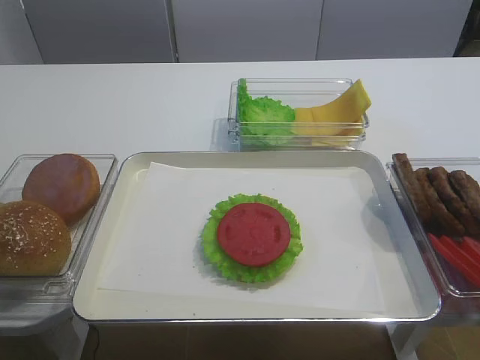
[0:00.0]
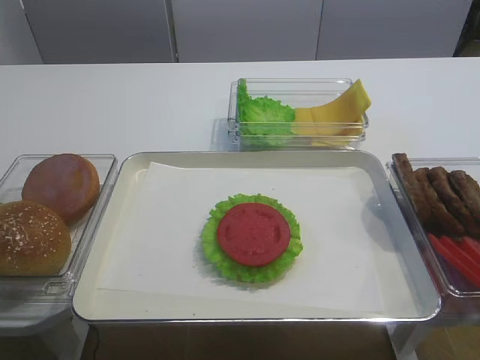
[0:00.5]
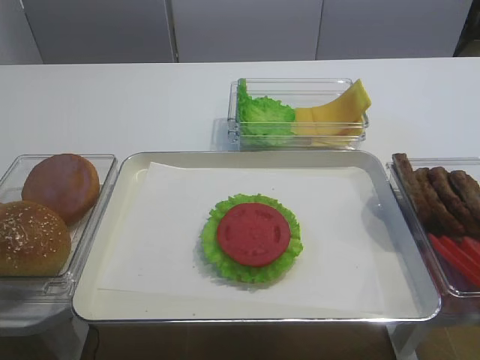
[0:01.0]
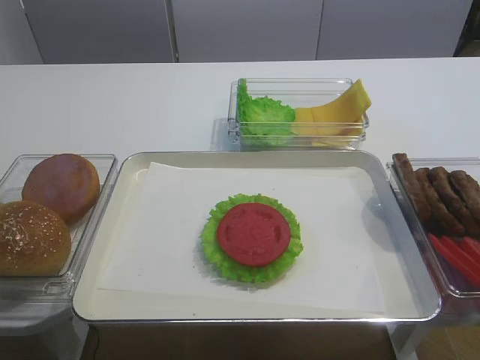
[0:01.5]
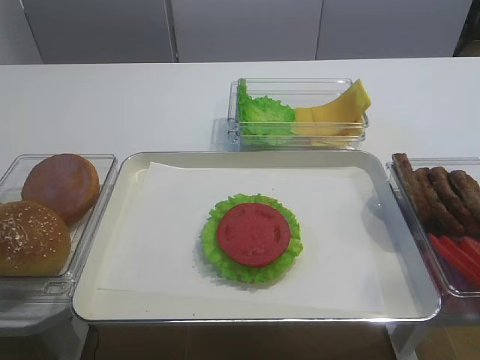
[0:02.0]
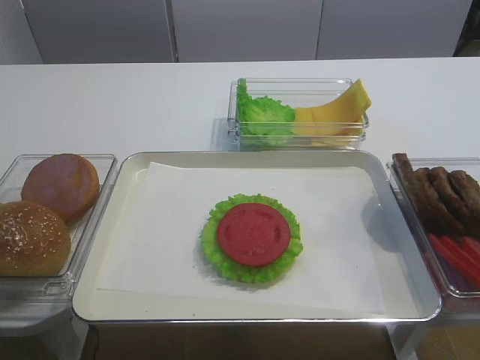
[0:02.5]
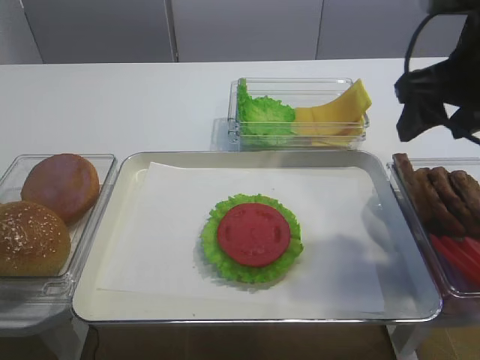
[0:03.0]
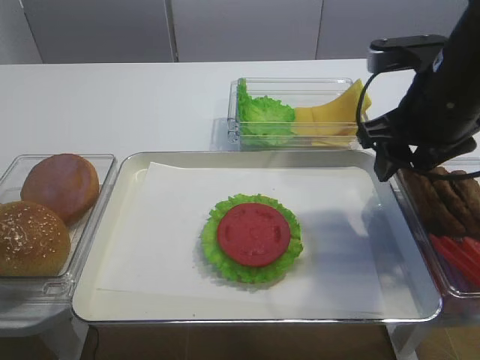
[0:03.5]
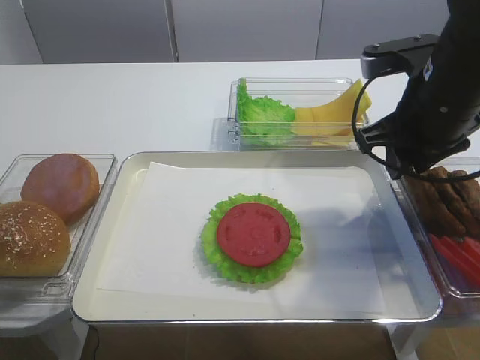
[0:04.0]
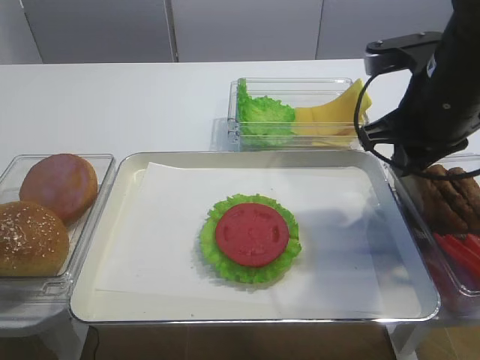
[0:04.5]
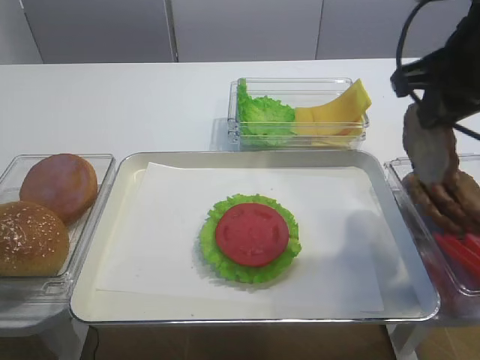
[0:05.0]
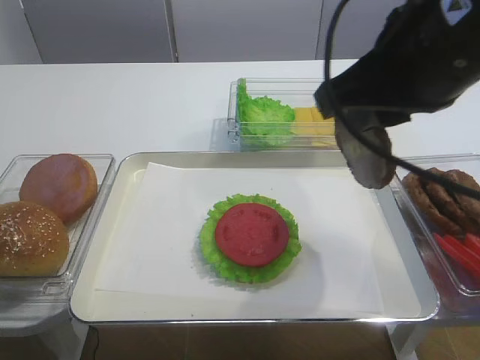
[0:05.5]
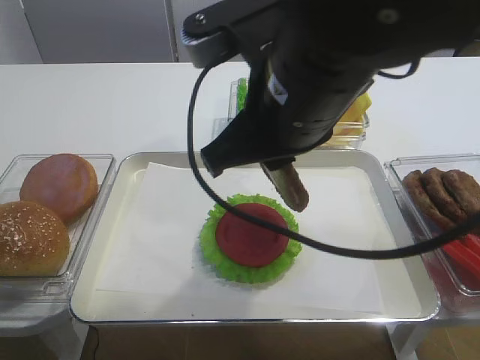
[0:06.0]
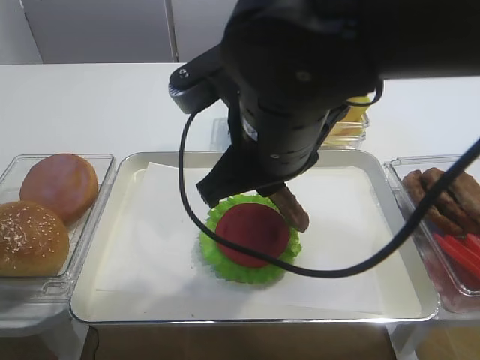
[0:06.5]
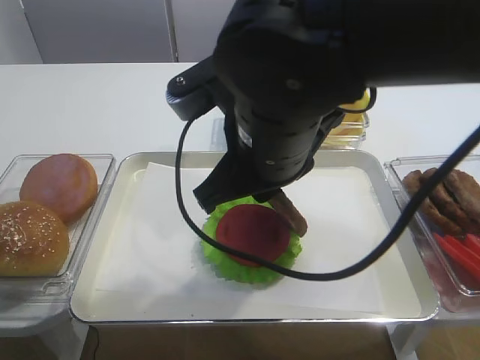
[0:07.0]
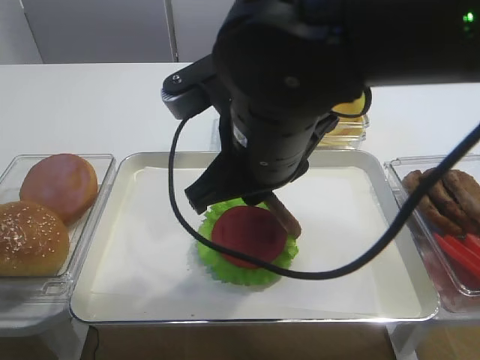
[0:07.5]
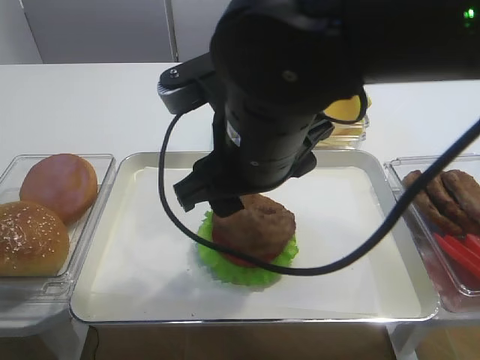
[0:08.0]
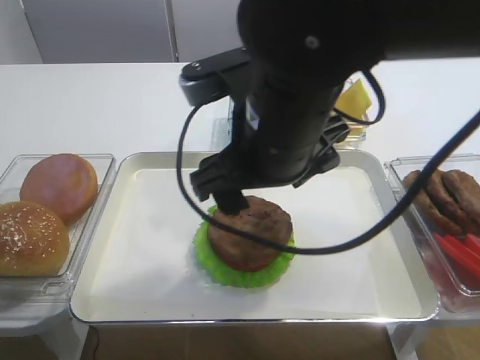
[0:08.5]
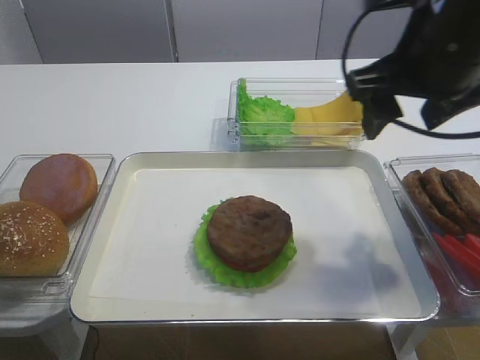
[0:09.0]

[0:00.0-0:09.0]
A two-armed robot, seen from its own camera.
Step, 0:00.0 to 0:04.5: Pick up the cutlet with the right gripper.
Step, 0:05.0 to 0:08.0: Place the cutlet on the tomato slice with the right gripper.
0:02.0 to 0:04.5: The right gripper goes some 30 cm forward, and closes up.
0:04.5 to 0:07.0: The right gripper travels to the left and backward by some 15 cm.
0:07.0 to 0:09.0: The right gripper shifts roughly 15 cm to the right, and opens up.

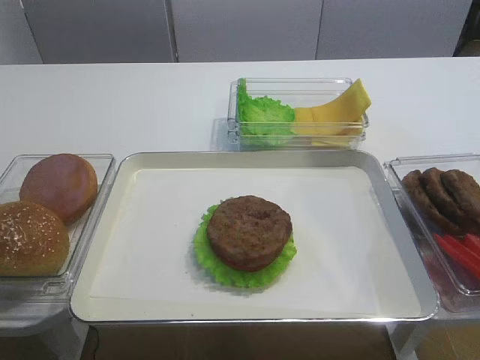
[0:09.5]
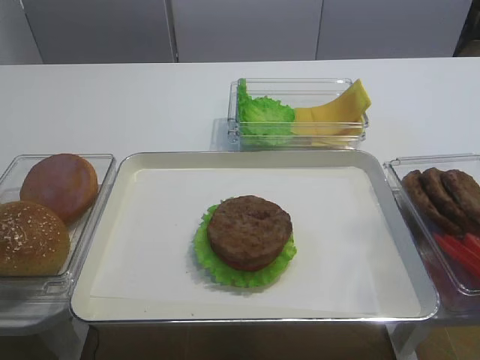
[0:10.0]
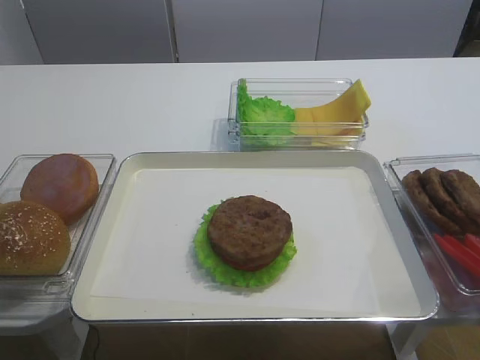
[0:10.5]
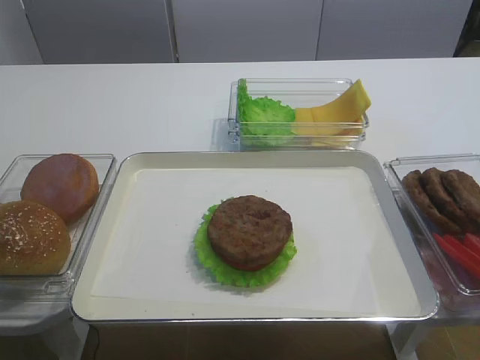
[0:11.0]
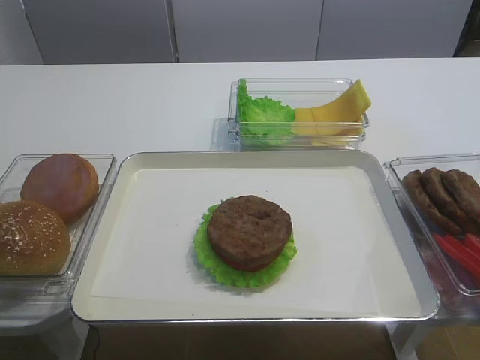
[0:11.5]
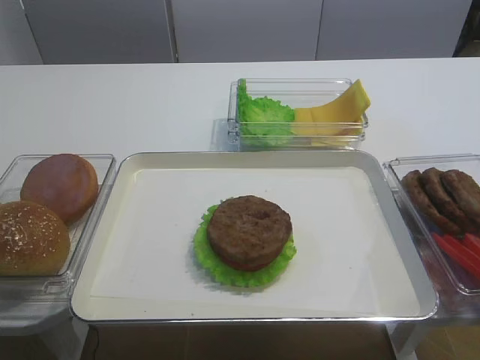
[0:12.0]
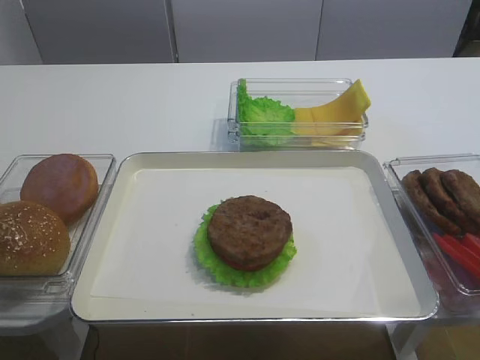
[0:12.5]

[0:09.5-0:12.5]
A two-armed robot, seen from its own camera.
0:09.5 to 0:11.0: The right gripper goes about 20 cm backward.

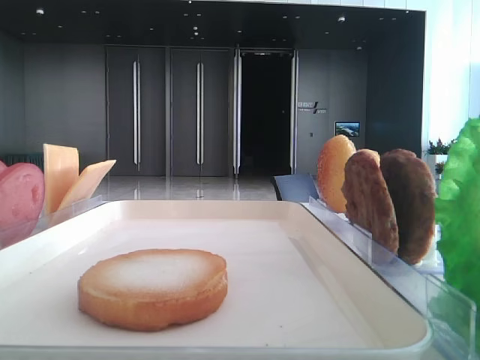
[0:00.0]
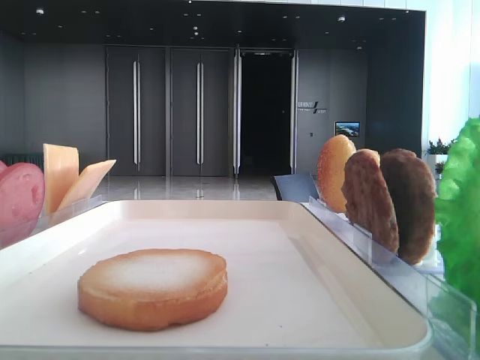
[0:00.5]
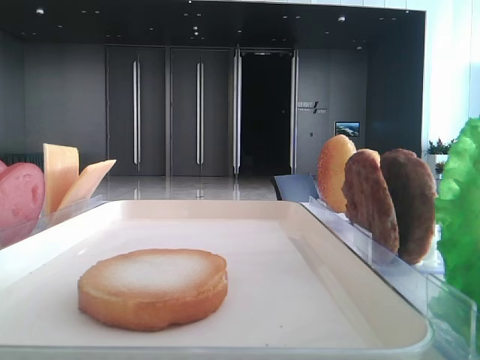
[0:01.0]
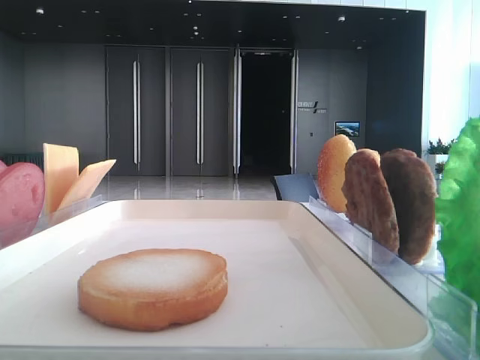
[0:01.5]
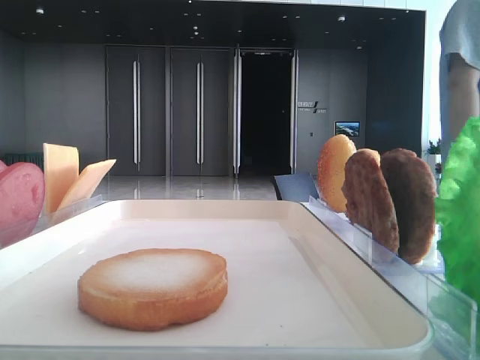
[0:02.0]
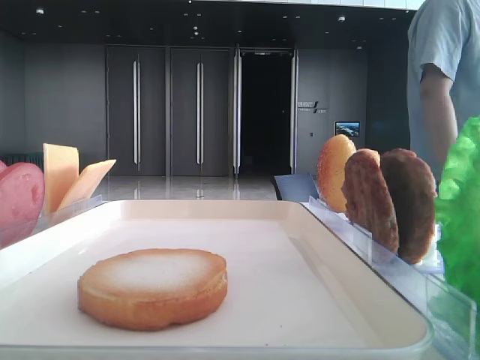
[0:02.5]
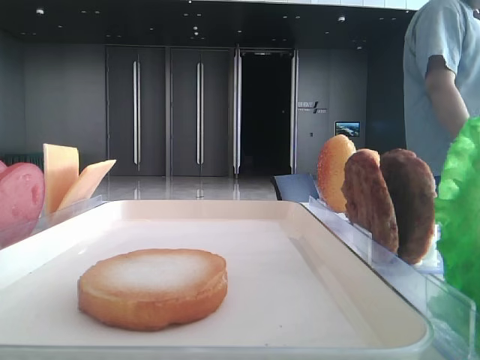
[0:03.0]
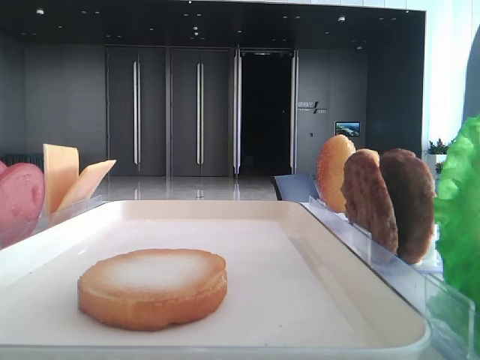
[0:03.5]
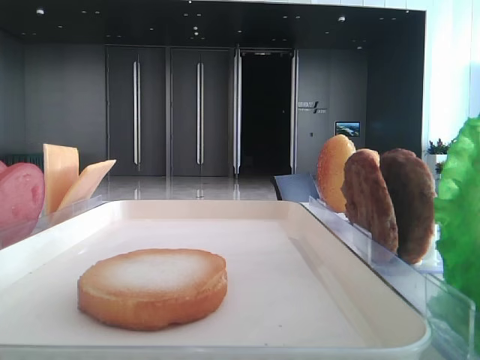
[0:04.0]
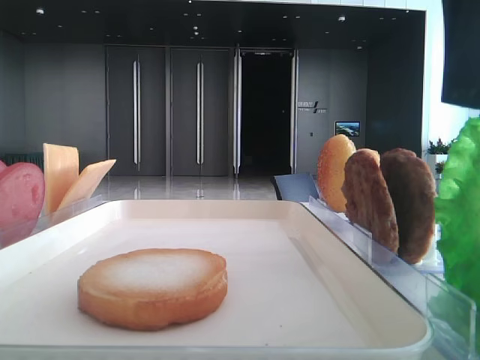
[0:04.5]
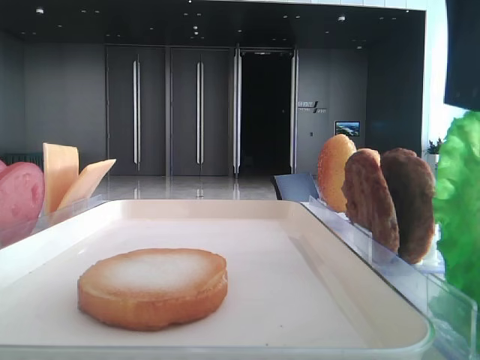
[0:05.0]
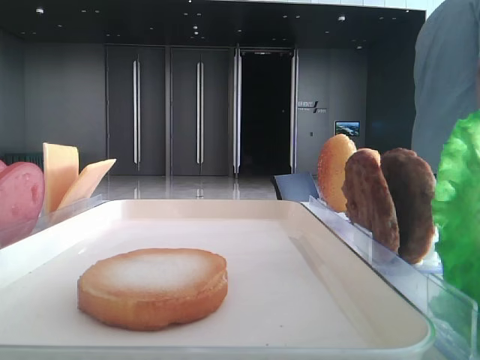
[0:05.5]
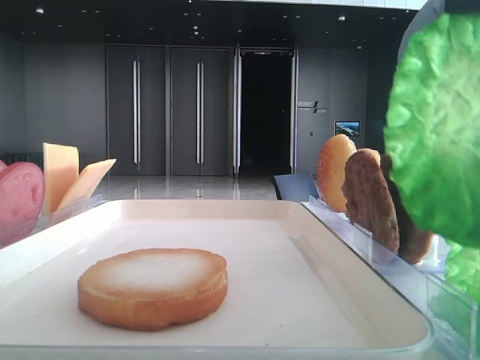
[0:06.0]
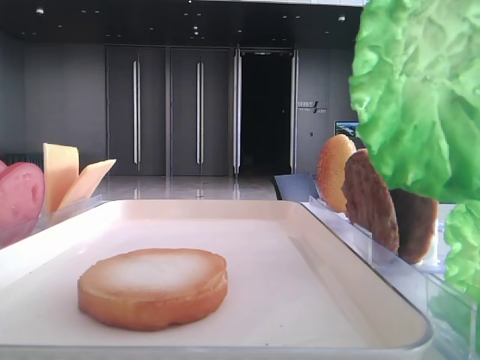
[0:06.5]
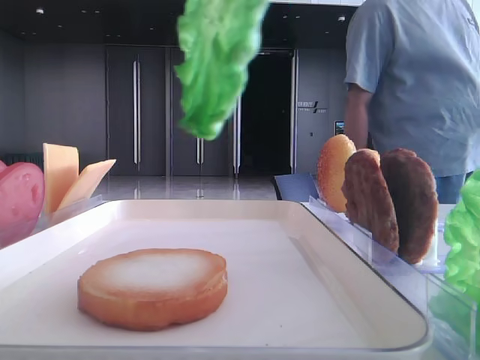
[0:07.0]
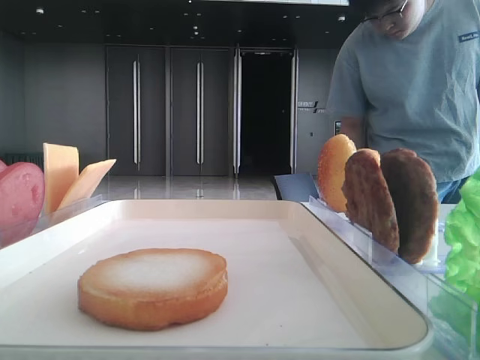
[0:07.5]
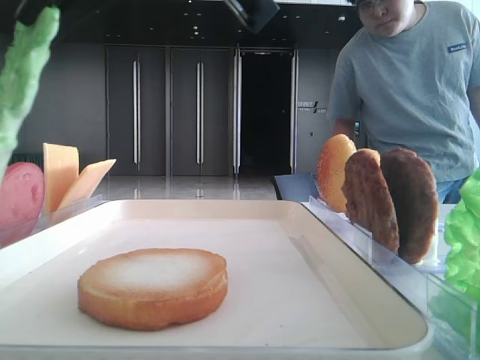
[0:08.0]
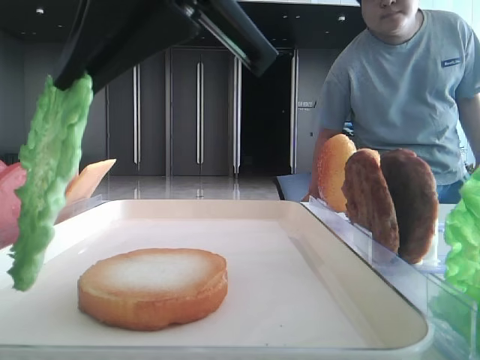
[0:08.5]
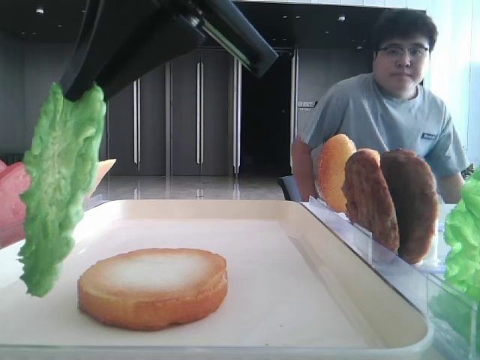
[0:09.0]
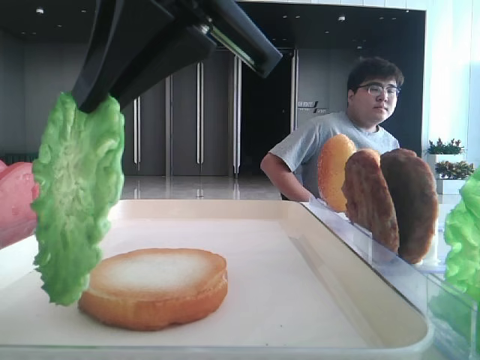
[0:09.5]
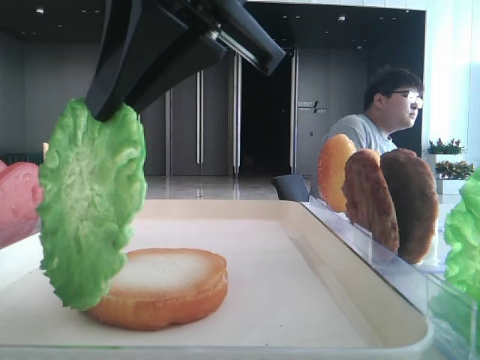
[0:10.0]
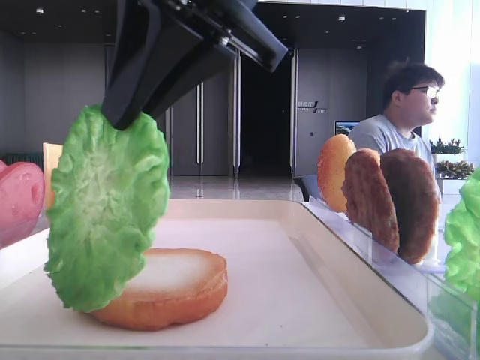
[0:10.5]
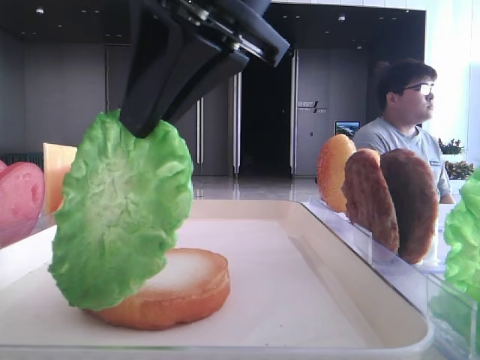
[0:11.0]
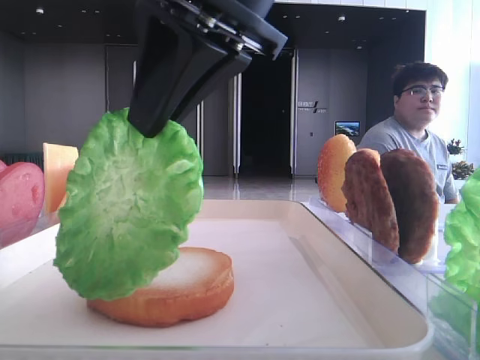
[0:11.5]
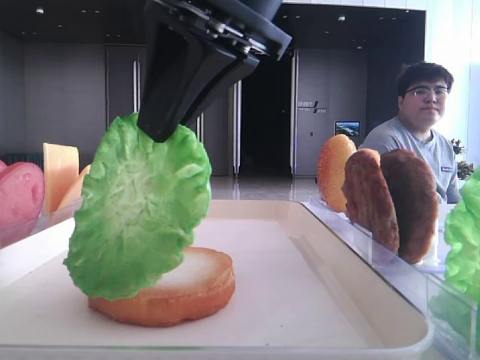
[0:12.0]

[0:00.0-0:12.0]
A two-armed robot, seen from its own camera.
Step, 0:00.0 to 0:05.5: Grab the lettuce leaf with the right hand.
0:02.0 to 0:04.0: The right gripper is displaced to the left by some 15 cm.
0:04.0 to 0:06.0: The right gripper closes.
0:06.0 to 0:08.0: The right gripper travels to the left by roughly 15 cm.

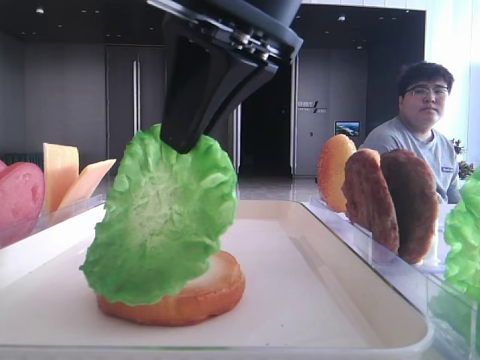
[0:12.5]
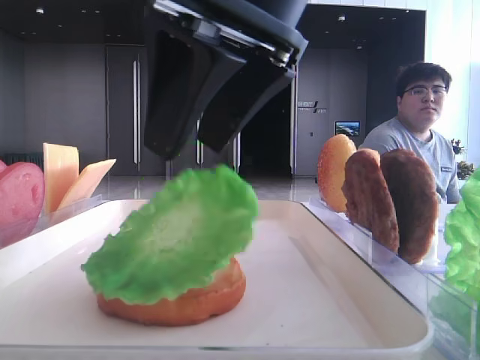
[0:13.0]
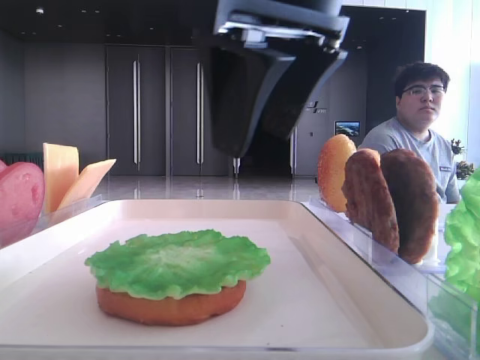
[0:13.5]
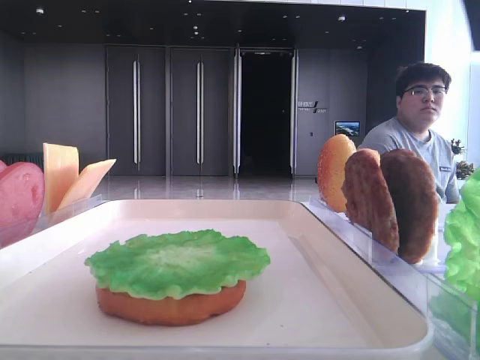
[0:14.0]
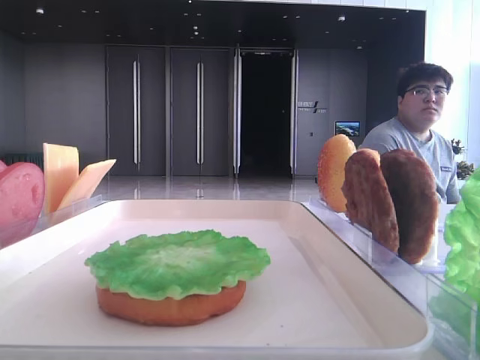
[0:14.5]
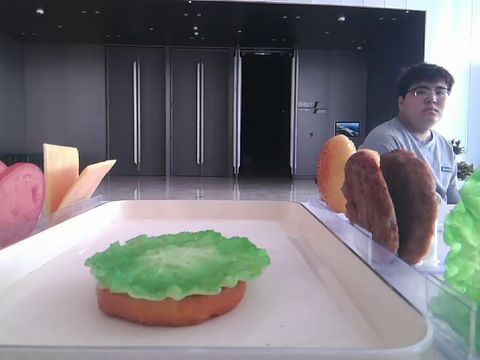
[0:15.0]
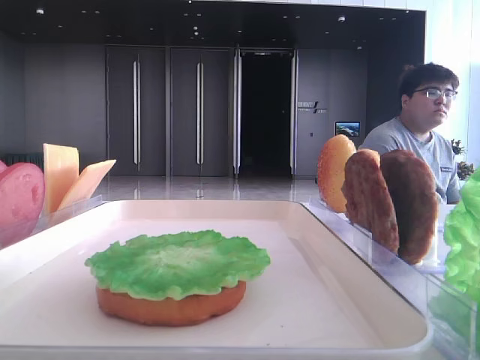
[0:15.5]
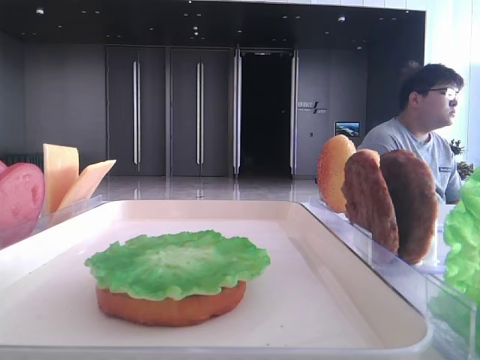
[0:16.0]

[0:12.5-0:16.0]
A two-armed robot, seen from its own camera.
0:12.5 to 0:14.5: The right gripper heads to the right and upward, covering approximately 35 cm, and opens.
0:14.5 to 0:16.0: The right gripper heads backward and downward, covering approximately 20 cm.
